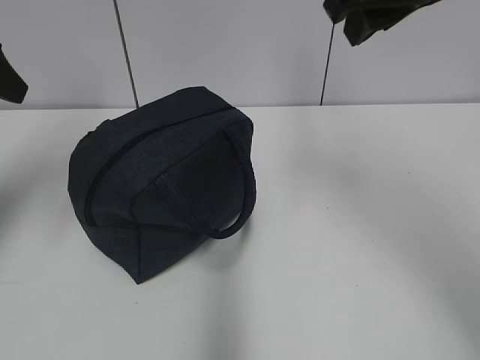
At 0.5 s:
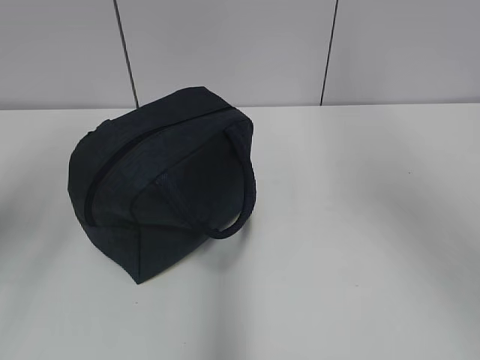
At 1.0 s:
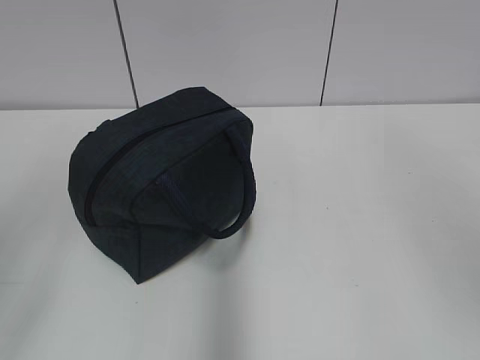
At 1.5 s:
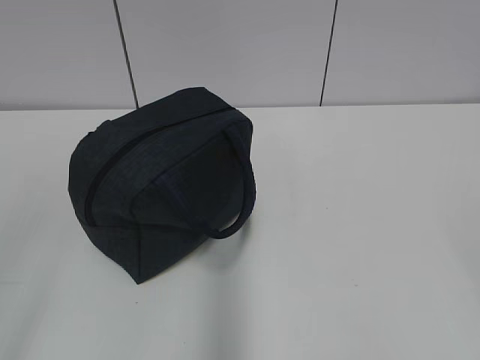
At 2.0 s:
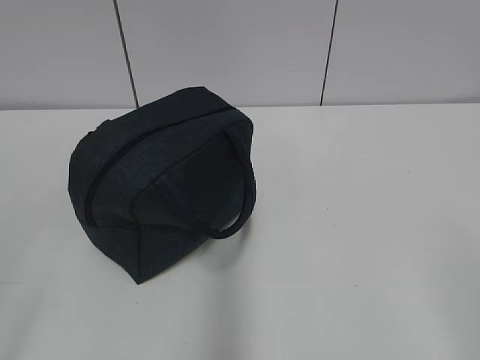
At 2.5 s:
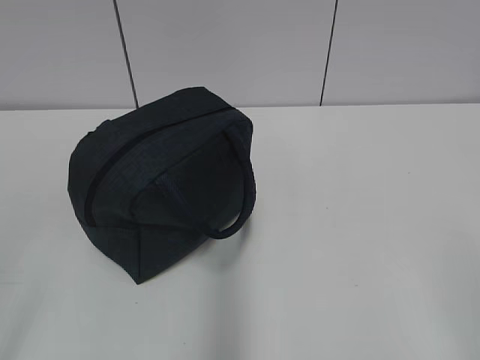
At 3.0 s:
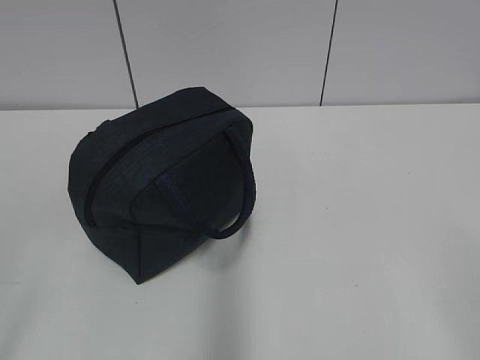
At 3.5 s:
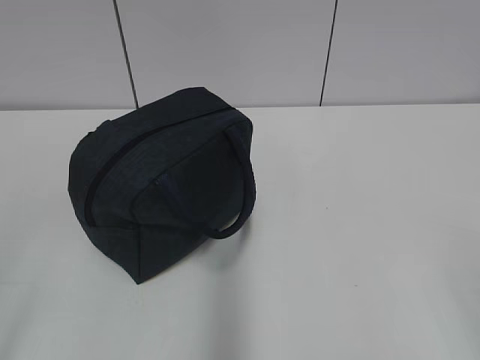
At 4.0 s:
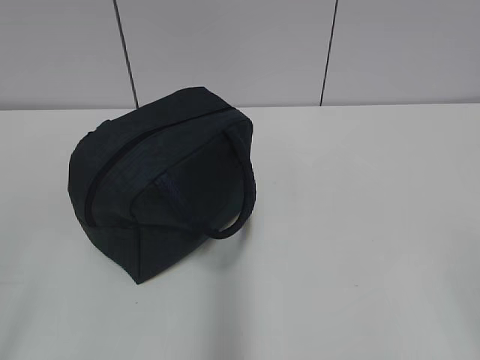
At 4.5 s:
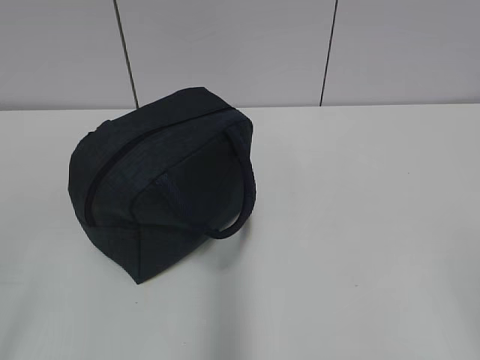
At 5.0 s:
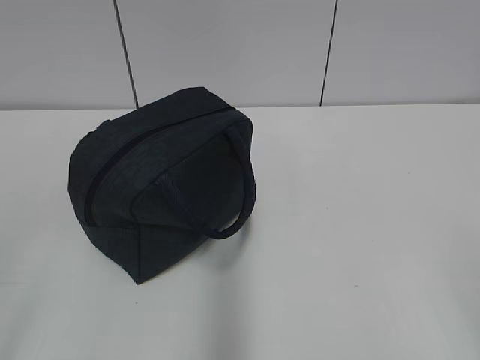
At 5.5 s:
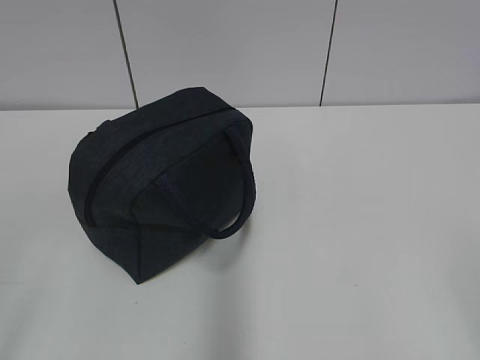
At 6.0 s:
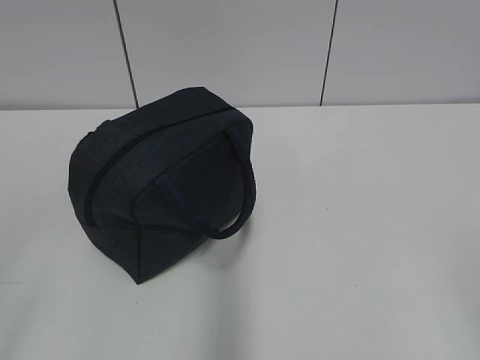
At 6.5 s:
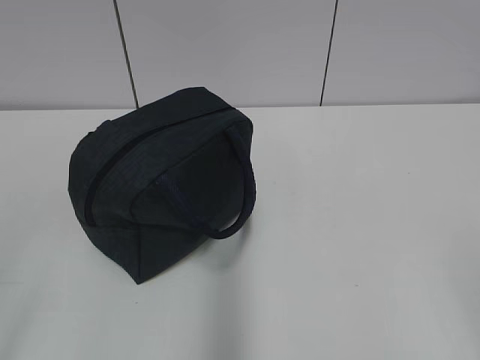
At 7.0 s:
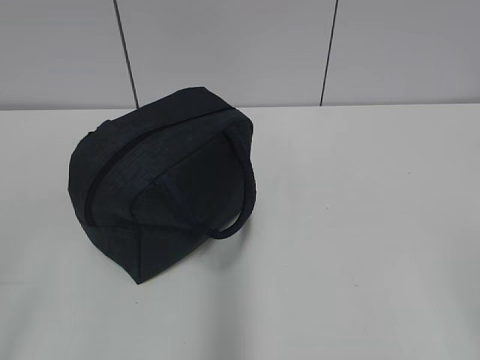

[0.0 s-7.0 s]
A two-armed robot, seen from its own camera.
0.0 to 2.0 s: The grippers both shift backward by about 30 cm.
3.5 to 7.0 s: The two grippers keep their place.
